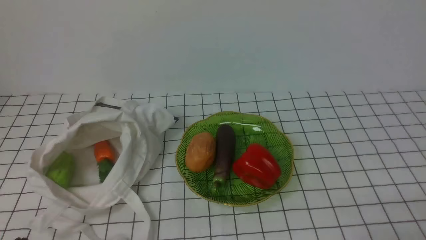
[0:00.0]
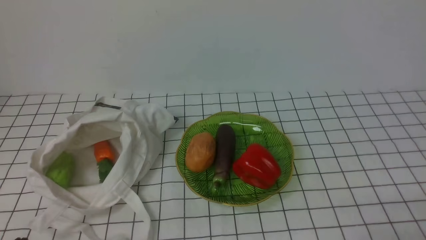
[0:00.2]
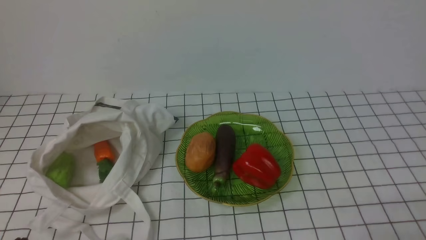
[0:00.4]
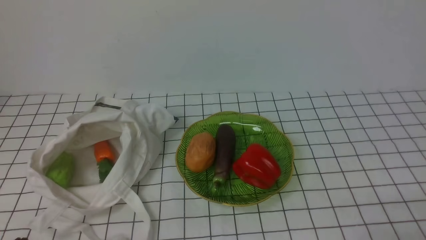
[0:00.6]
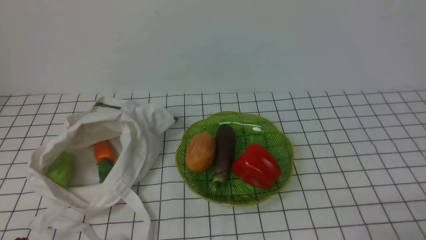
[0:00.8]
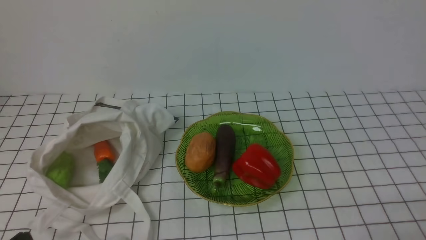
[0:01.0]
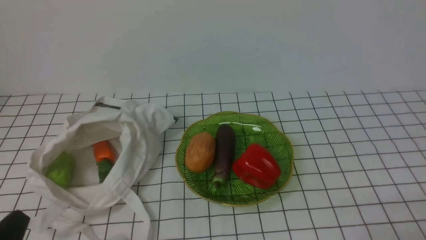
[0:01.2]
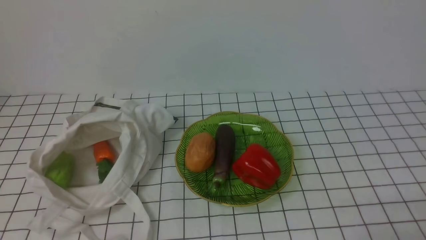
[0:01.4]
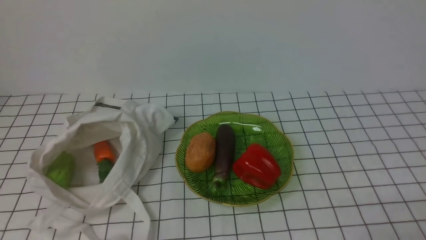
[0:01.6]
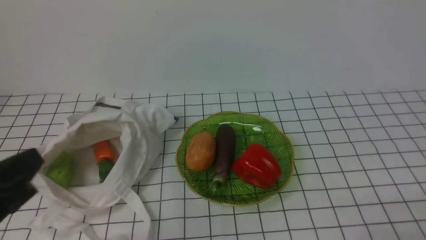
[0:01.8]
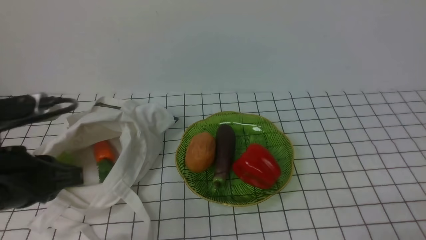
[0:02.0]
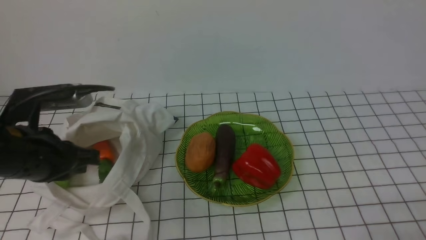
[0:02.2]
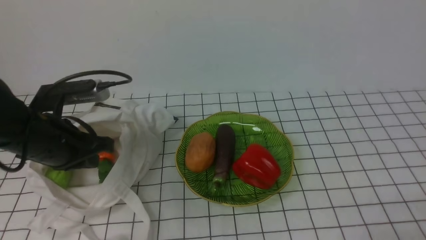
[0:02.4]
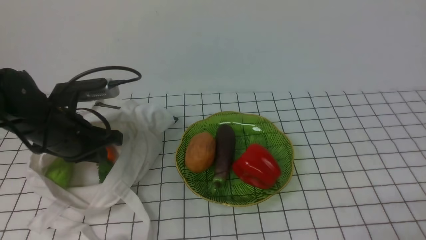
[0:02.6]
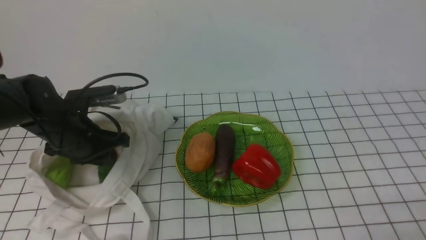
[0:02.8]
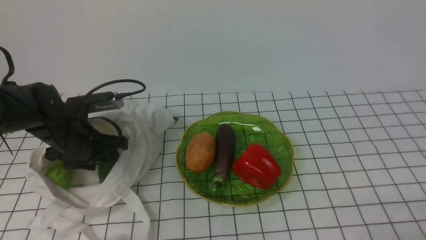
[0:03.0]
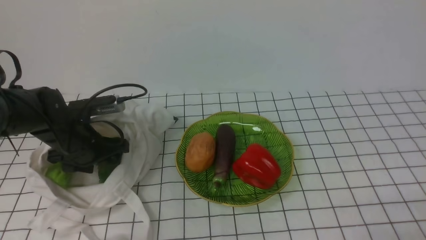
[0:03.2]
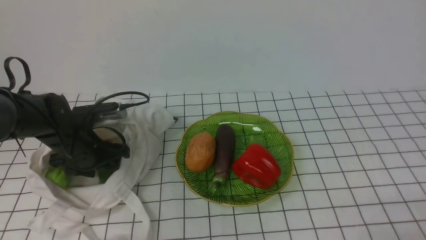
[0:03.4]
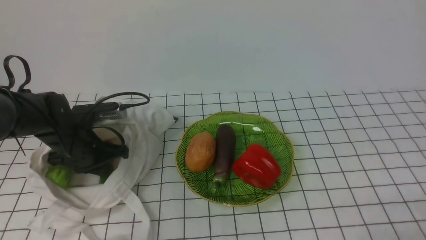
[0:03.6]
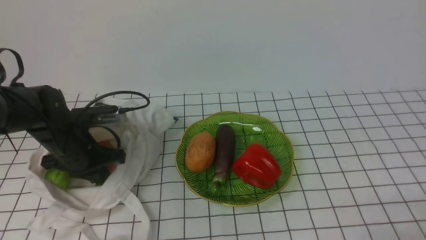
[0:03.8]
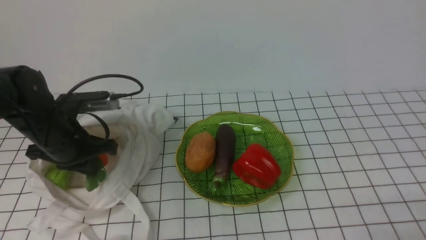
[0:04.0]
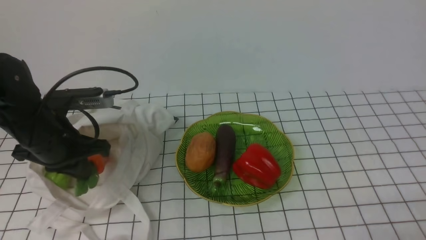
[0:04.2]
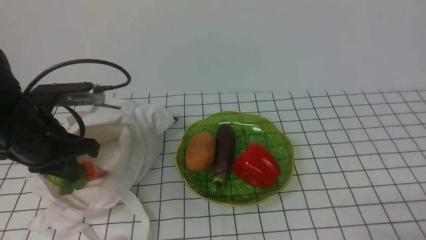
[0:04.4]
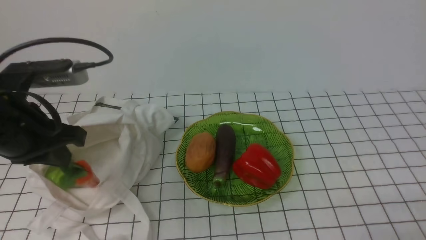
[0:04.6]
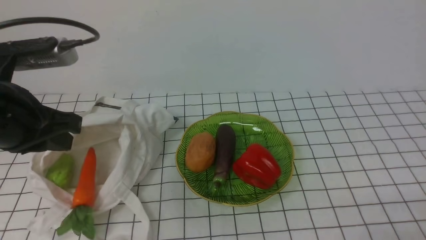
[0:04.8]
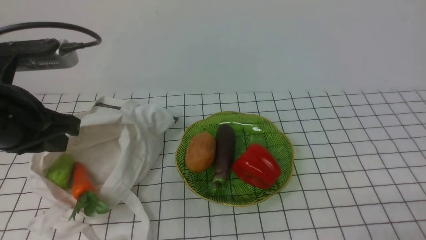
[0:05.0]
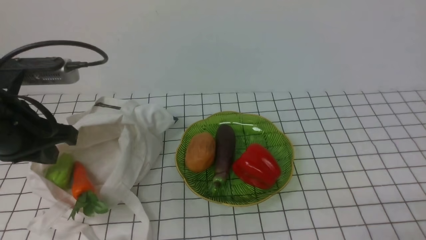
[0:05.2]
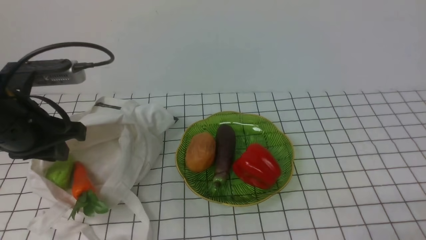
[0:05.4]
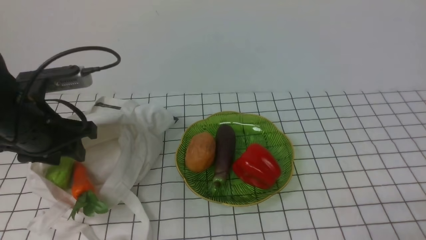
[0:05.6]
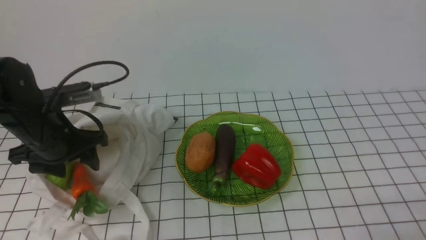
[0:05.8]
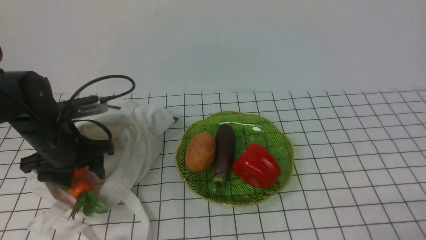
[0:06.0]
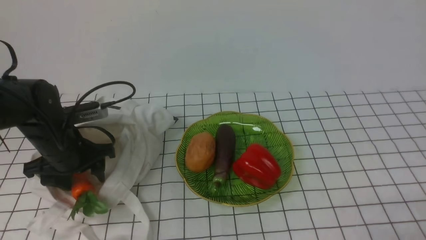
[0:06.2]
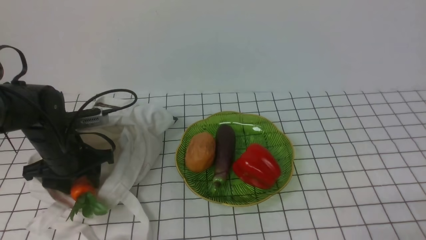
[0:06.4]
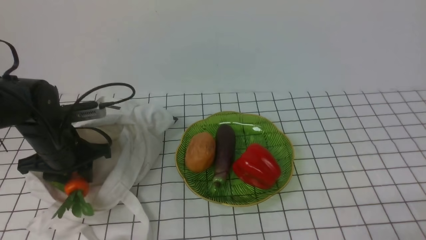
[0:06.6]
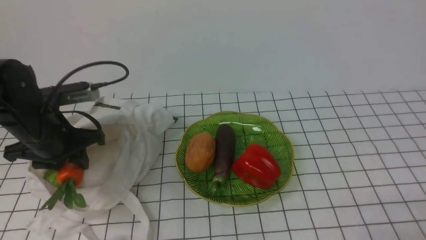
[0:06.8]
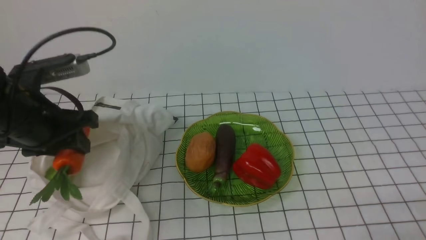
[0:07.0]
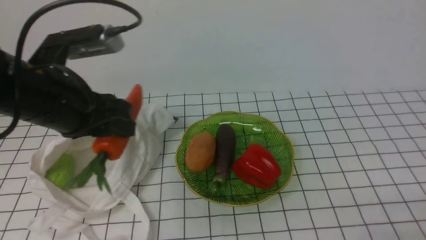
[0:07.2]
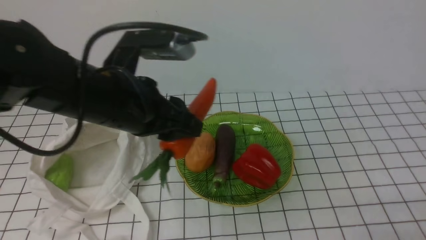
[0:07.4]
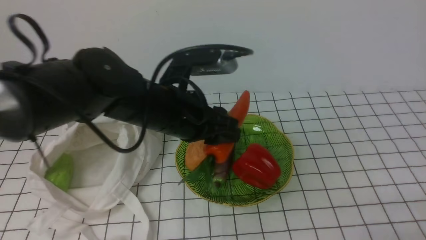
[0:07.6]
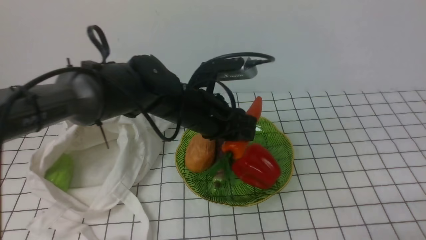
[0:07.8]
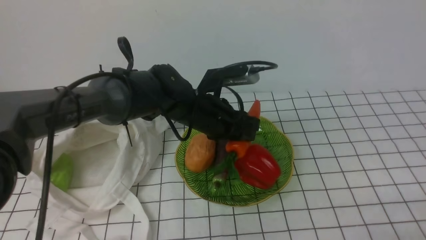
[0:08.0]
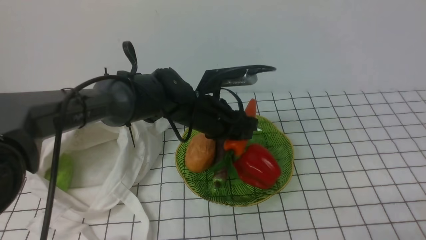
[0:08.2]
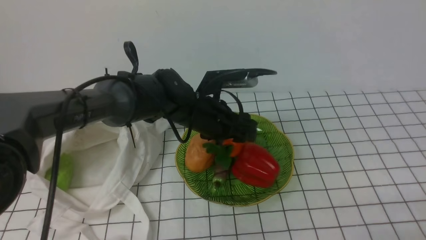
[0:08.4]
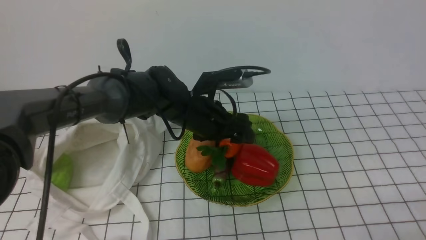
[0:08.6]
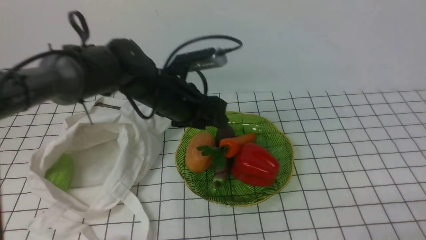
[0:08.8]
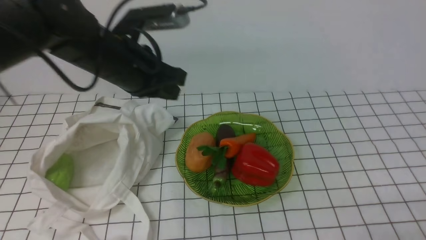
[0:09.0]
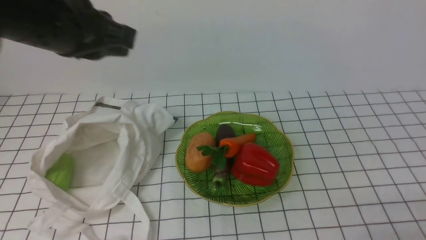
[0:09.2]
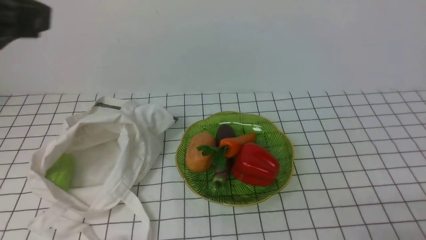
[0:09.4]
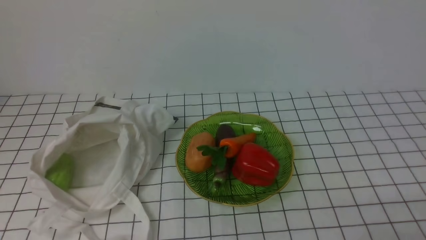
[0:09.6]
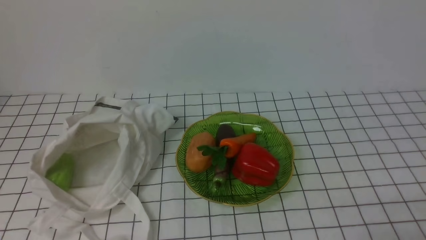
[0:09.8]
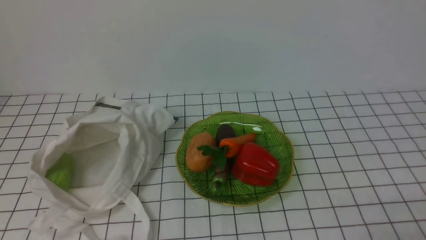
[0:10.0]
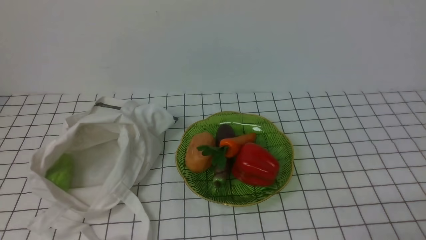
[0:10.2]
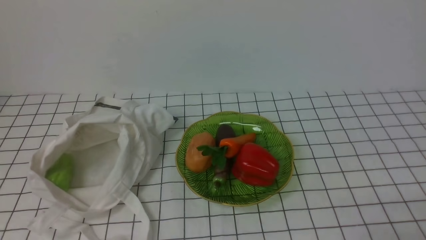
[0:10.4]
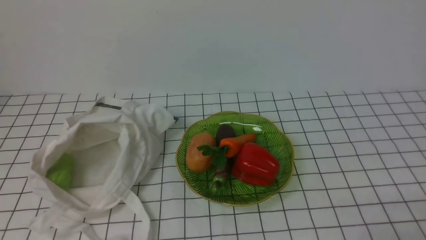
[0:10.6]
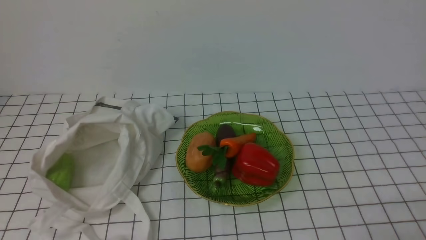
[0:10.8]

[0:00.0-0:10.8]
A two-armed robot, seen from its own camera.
Task of the whole recording: take vegetables from bag on white checkered tablecloth place on plate.
Step, 0.0 to 6.4 s: Grasp the carrot with left gripper.
Step, 6.6 to 8.6 s: Place the carrot on the plate with left gripper.
1.6 to 3.0 s: The left gripper heads forward, covering about 25 cm, and opens.
3.0 to 4.6 s: The left gripper is displaced upward and backward by roughly 15 cm, and closes up.
4.6 to 6.2 s: The left gripper goes about 15 cm downward and forward, and opens up.
6.2 to 7.8 s: The left gripper goes roughly 20 cm to the right, and closes.
7.8 to 9.2 s: The left gripper goes approximately 25 cm upward, to the left and backward, and closes.
9.2 to 10.8 s: The left gripper travels backward and downward by approximately 25 cm.

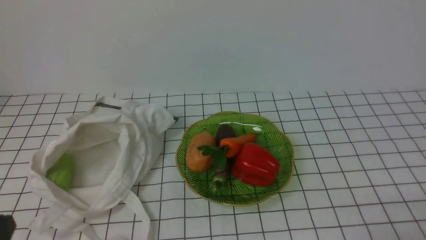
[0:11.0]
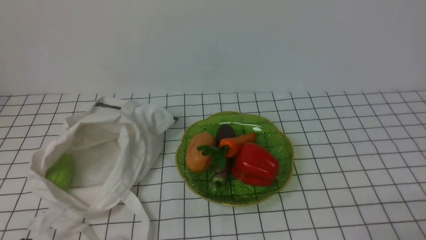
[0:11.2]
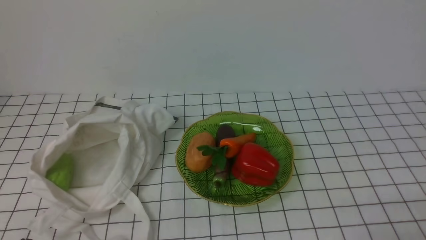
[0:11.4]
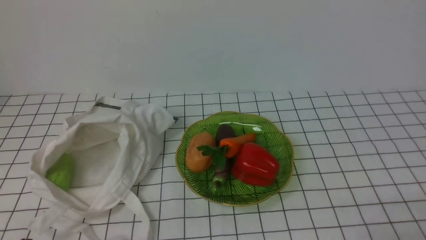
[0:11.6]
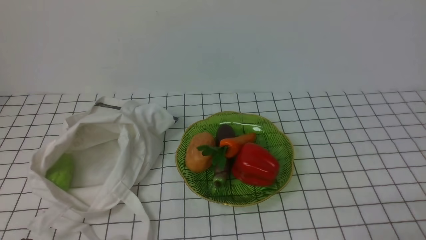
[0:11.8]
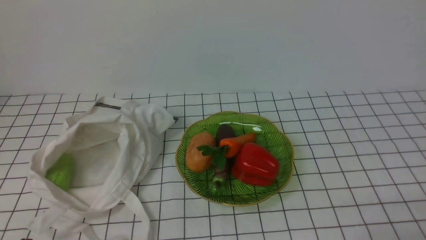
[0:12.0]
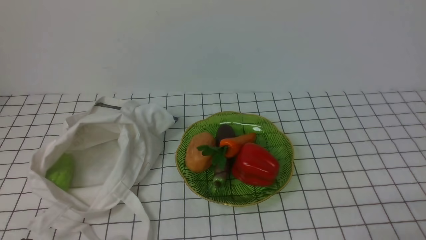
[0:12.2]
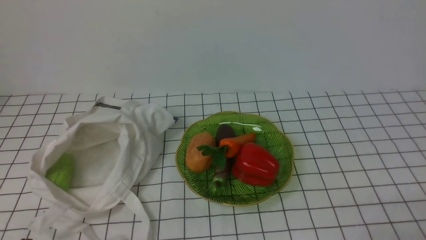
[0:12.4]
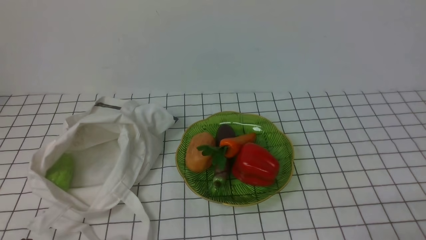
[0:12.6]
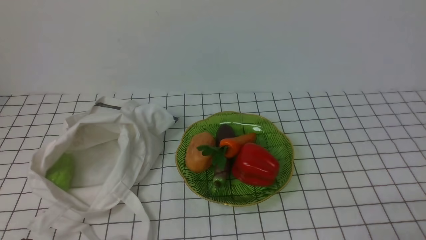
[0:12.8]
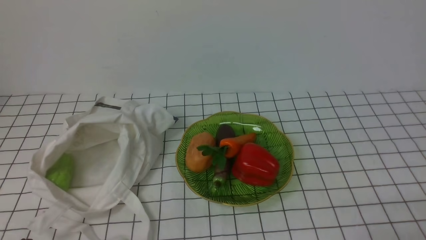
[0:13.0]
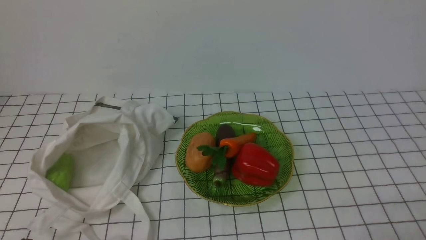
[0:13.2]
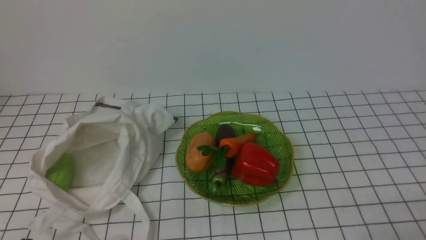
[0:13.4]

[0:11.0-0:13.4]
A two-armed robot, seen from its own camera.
Task of the whole recording: take vegetables from bag on white checkered tablecloth place on plate.
12.2 to 13.4 s: Both grippers stay put.

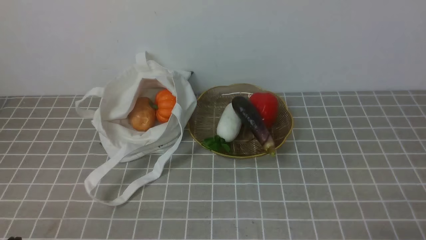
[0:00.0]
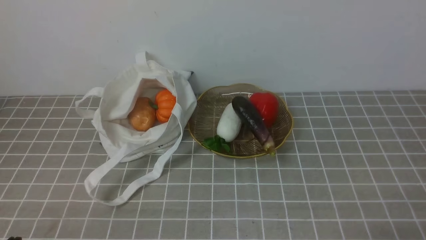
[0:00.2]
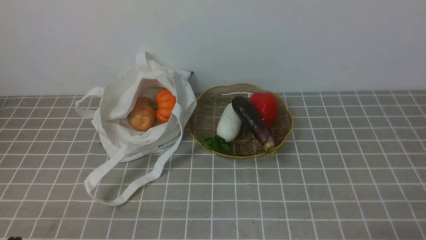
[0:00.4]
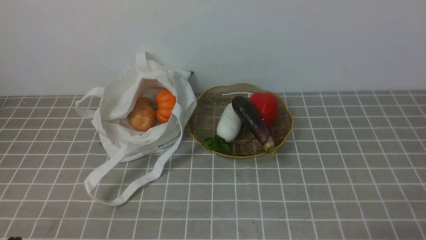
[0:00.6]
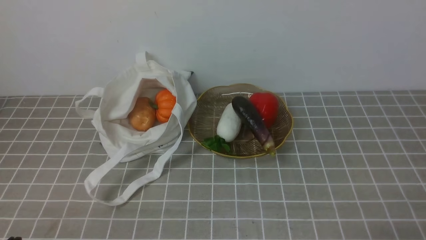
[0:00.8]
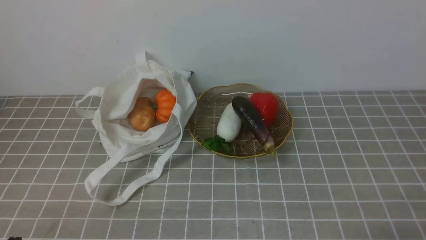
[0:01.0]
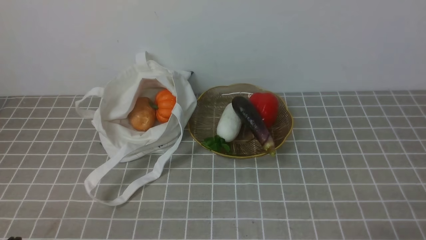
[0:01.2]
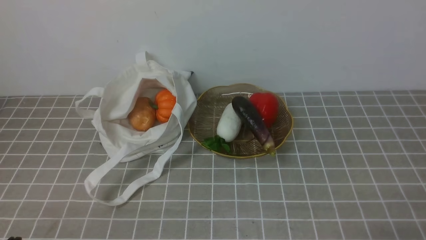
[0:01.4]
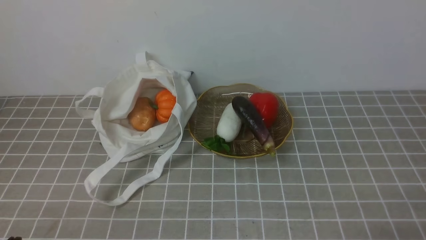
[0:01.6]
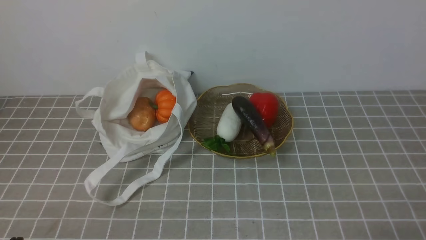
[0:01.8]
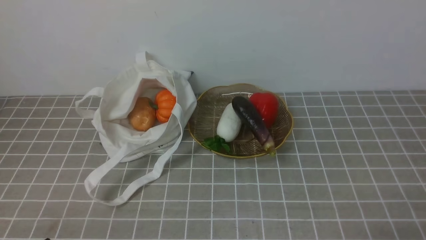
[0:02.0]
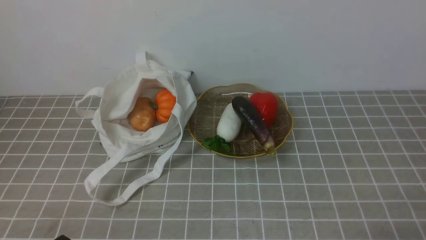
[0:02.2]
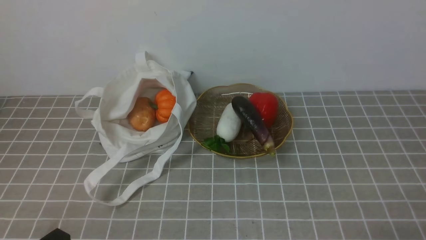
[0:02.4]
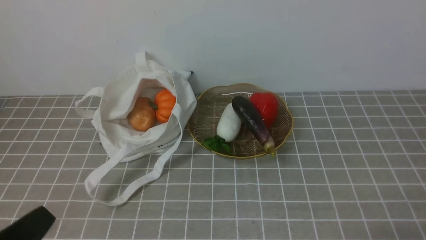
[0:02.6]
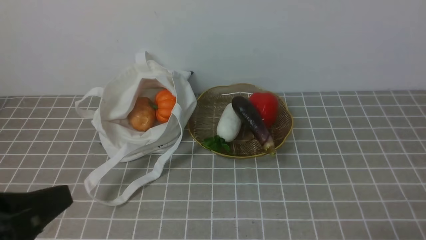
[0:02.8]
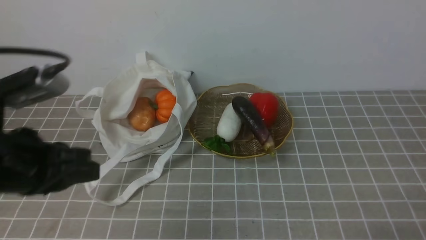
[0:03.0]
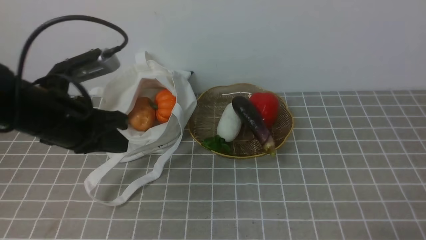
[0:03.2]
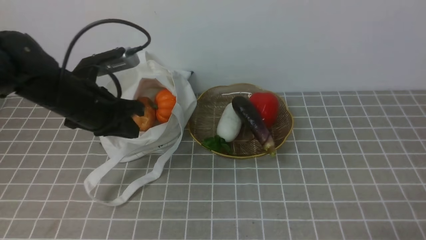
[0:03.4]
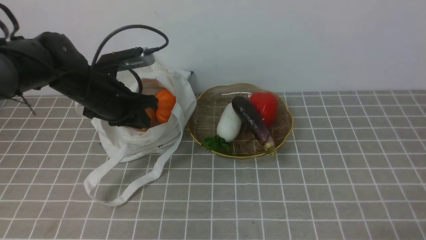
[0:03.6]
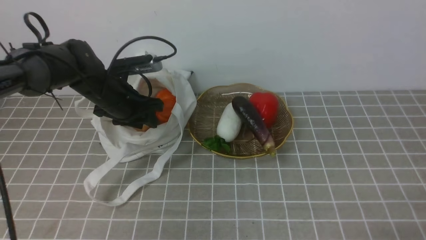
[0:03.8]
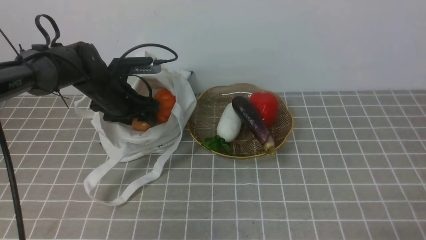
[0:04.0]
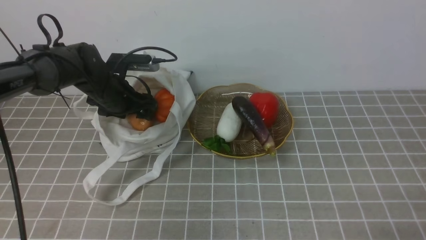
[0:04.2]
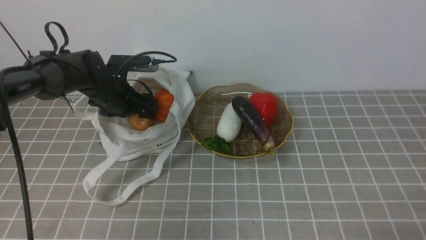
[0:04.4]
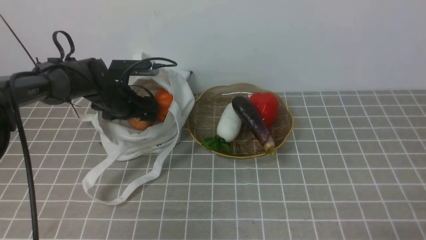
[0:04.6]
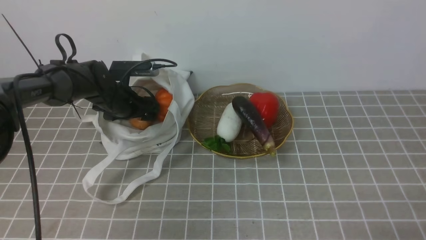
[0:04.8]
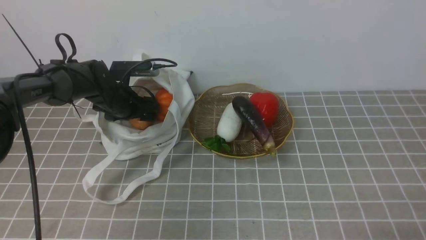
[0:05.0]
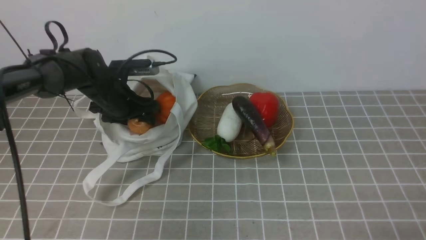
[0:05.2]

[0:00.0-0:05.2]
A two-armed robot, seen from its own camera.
Task of the whole recording: take vegetables from bag on grey coffee tablecloth place on plate.
Step, 0.0 to 4.8 s: Grasp the potato with left gripper.
1.8 to 3.4 s: The left gripper moves forward and upward, roughly 25 cm.
3.4 to 5.2 s: The left gripper heads forward and downward, covering some 20 cm, and opens its fingers.
